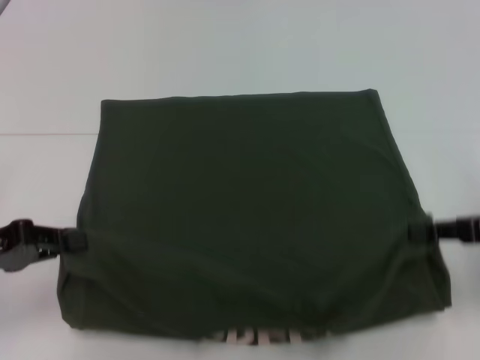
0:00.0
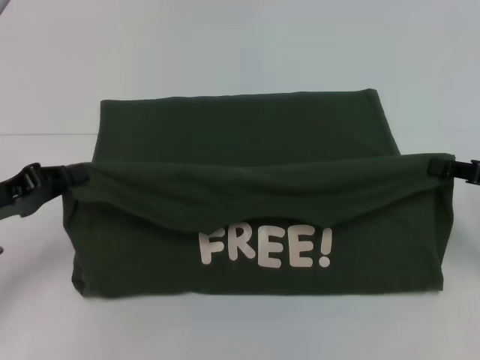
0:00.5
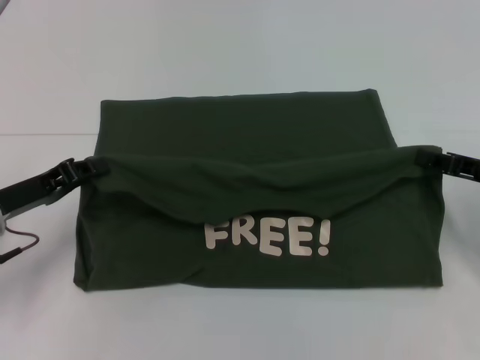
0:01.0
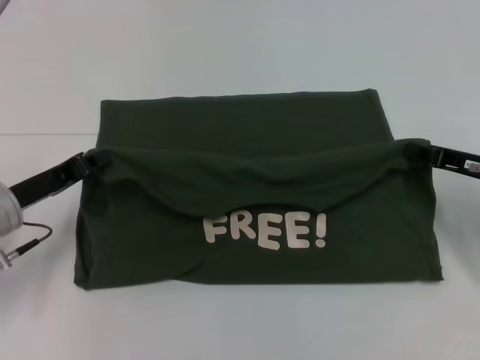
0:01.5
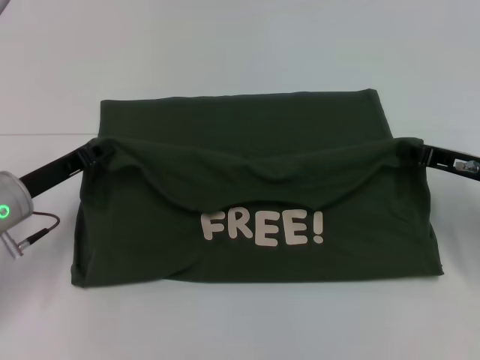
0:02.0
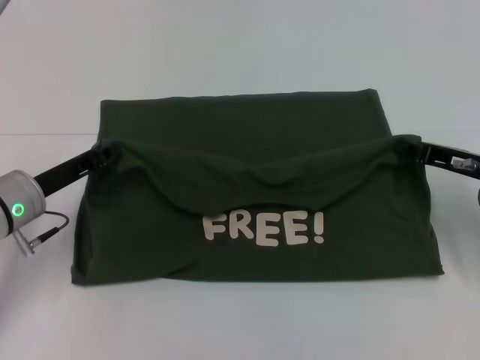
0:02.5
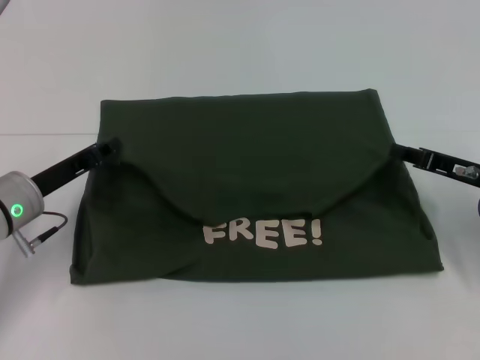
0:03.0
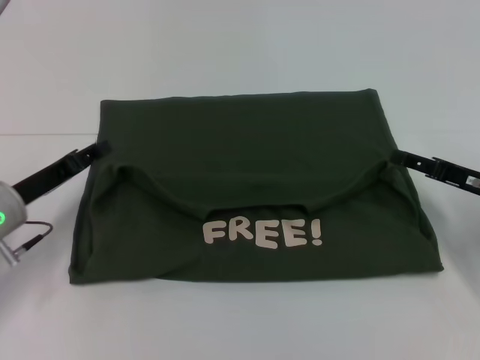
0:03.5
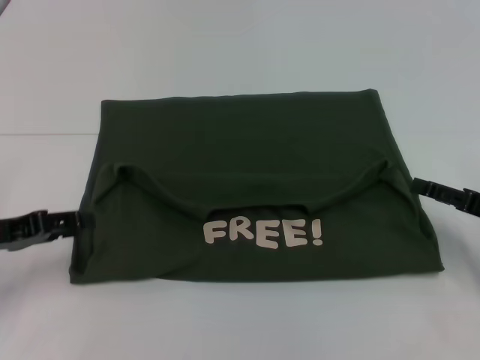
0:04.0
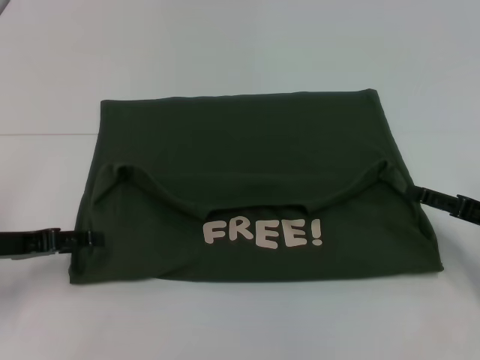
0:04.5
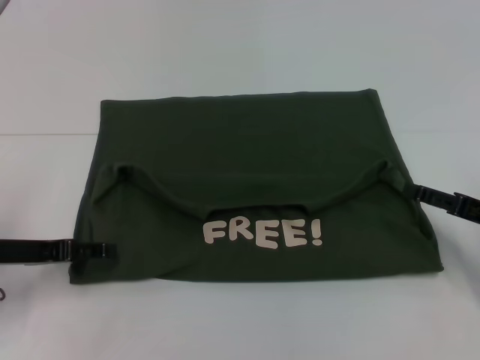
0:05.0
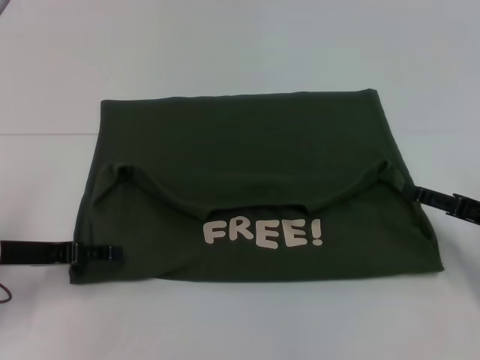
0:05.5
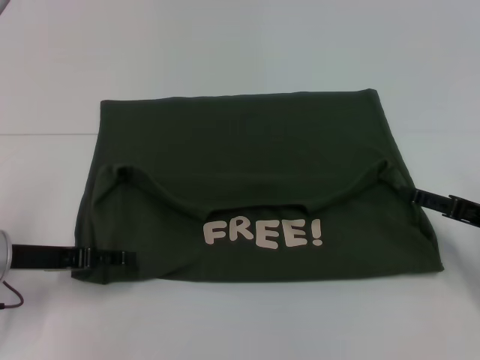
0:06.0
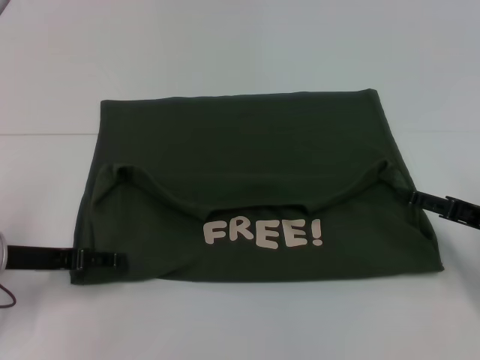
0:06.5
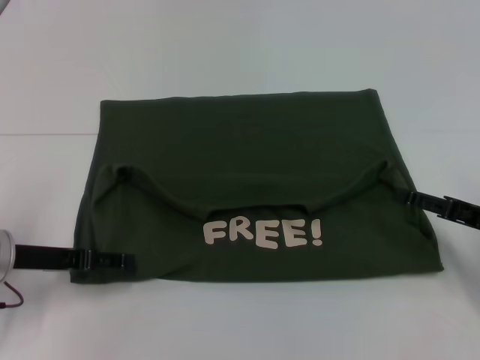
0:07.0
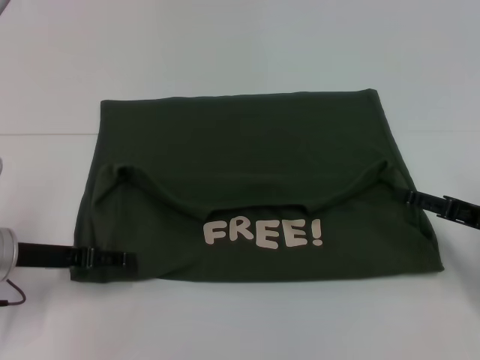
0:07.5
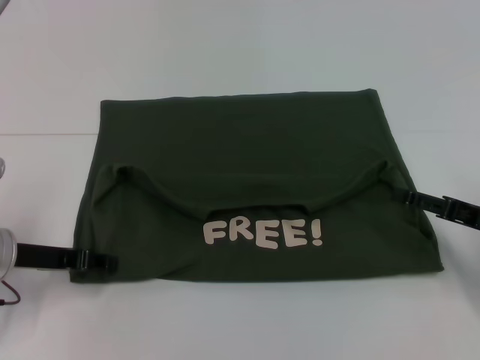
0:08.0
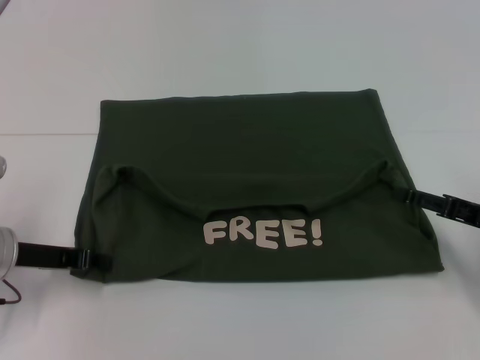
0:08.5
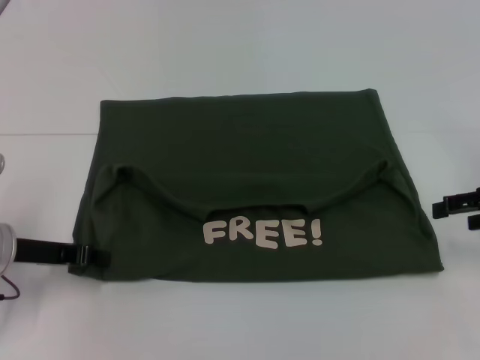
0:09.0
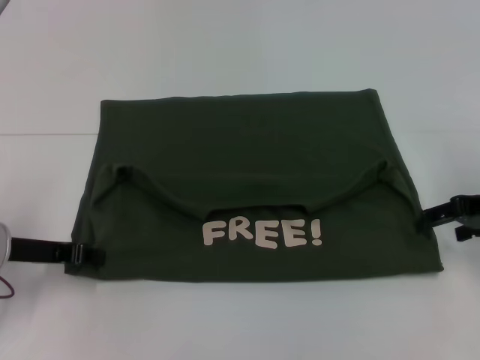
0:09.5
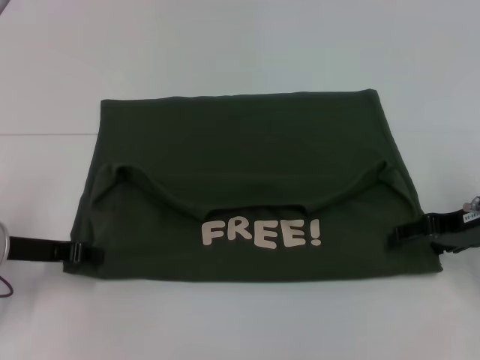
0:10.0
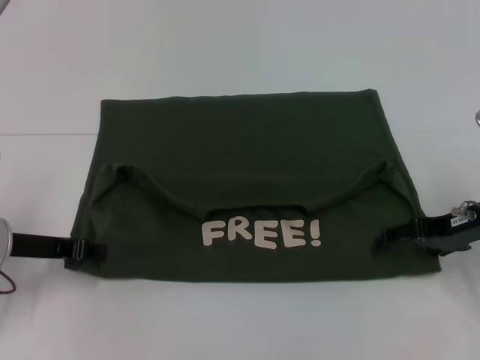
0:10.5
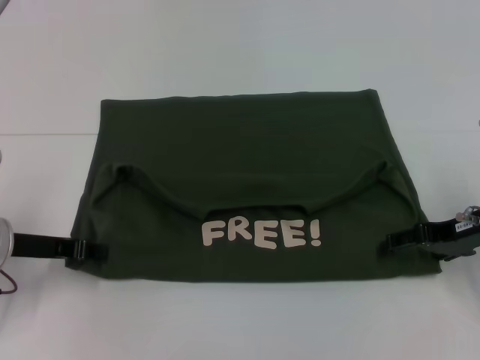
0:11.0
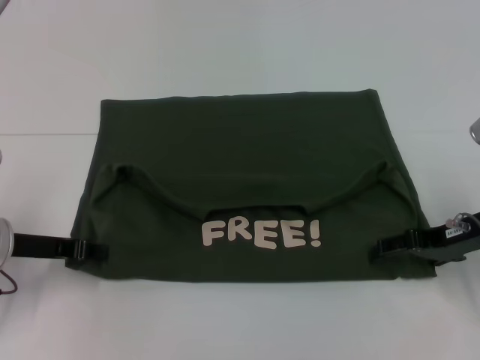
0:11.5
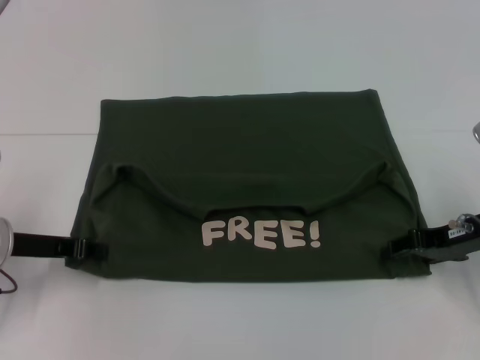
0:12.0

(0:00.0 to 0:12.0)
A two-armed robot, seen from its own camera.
Step, 0:00.0 - 0:03.5: Fold the clothes with your left hand.
Step, 0:00.0 - 0:03.5: Fold the clothes with your right hand.
0:00.0 - 0:02.0: The left gripper heads to the right and forward, covering roughly 10 cm. Meanwhile the right gripper is displaced forward by some 5 cm.
0:02.0 - 0:04.0: The left gripper shifts roughly 5 cm to the left, and opens; the right gripper travels backward by about 5 cm, and opens its fingers.
0:04.0 - 0:06.0: The left gripper moves some 5 cm.
0:06.0 - 0:08.0: The left gripper closes.
0:08.0 - 0:10.0: The right gripper moves forward, roughly 5 cm; the left gripper closes its fingers.
0:10.0 - 0:12.0: The grippers stay close to where they were, moving slightly.

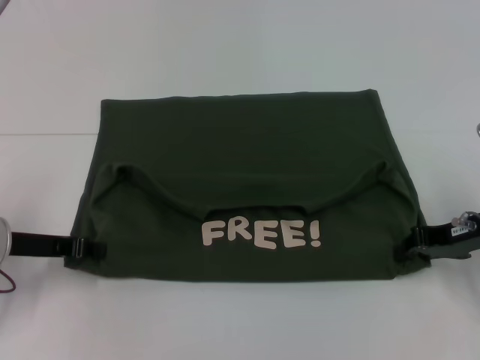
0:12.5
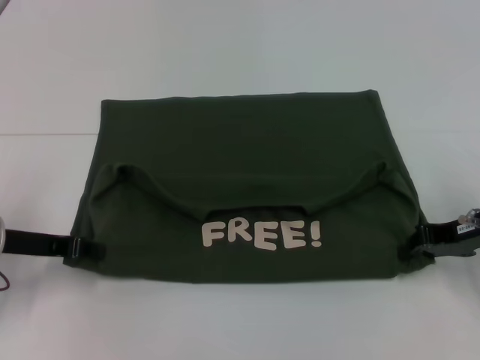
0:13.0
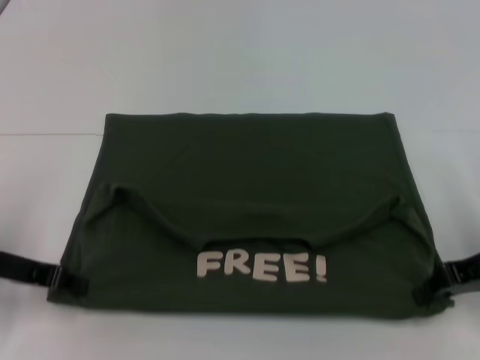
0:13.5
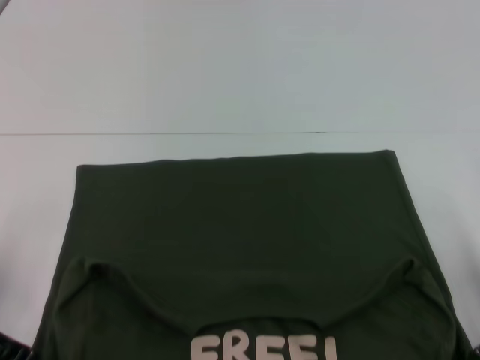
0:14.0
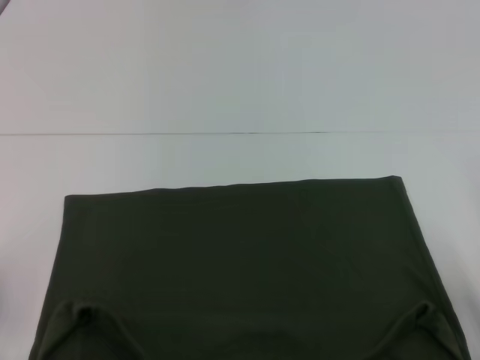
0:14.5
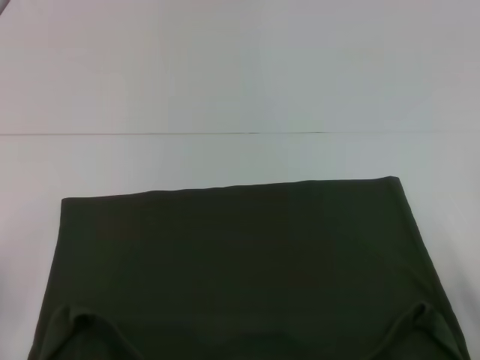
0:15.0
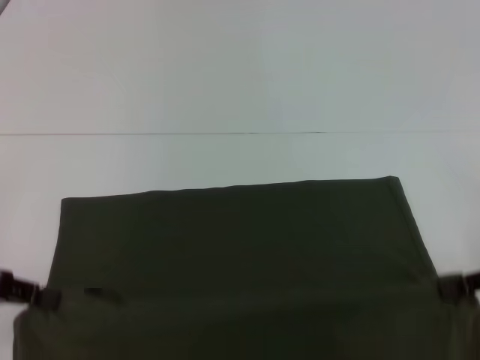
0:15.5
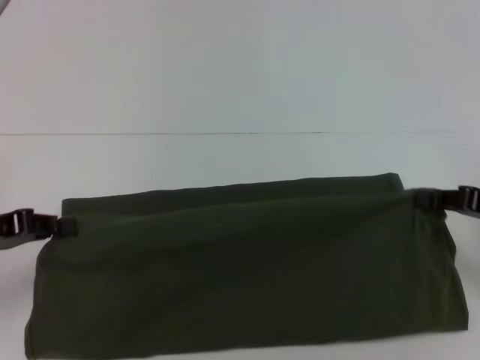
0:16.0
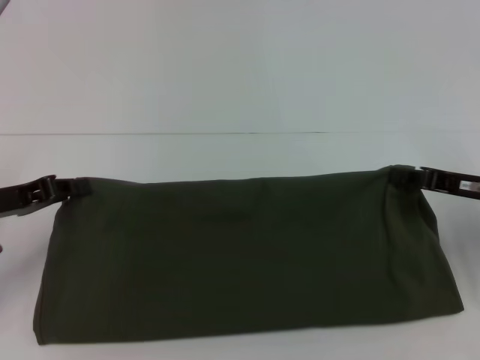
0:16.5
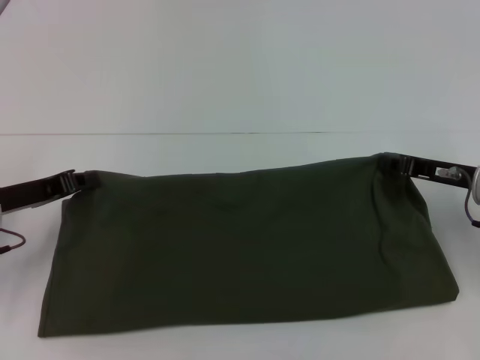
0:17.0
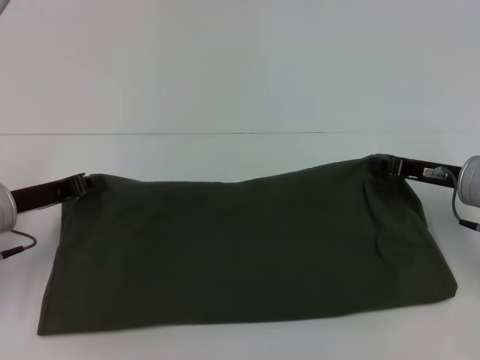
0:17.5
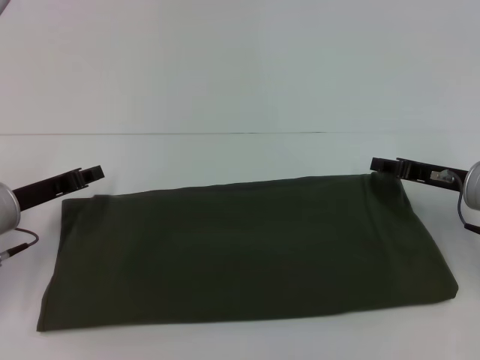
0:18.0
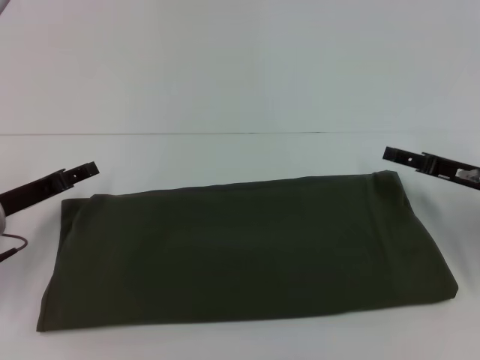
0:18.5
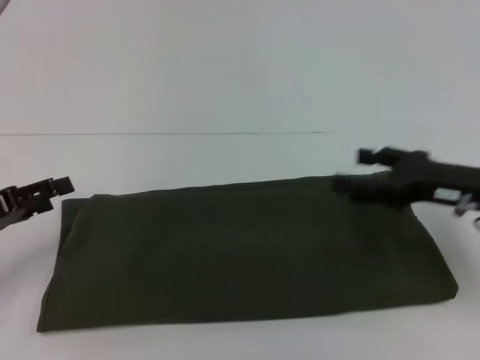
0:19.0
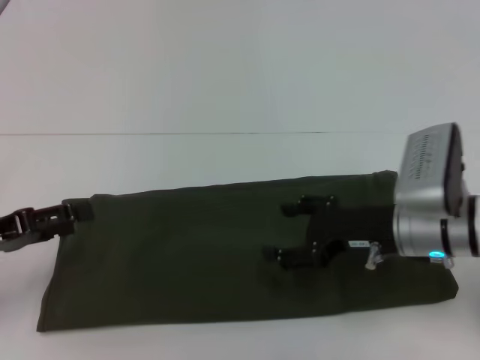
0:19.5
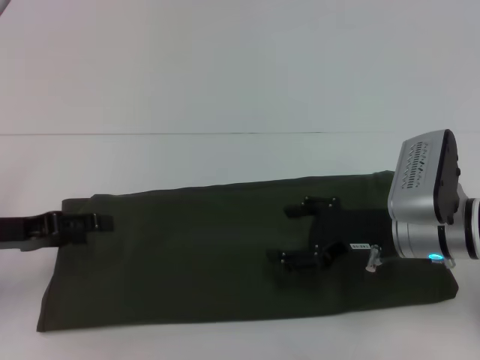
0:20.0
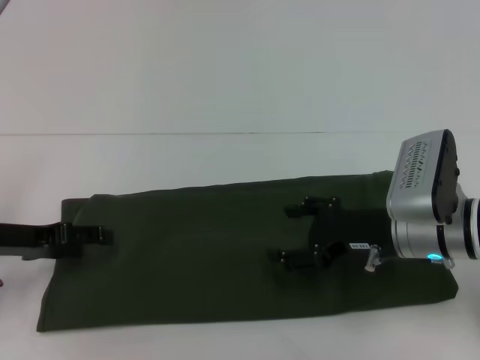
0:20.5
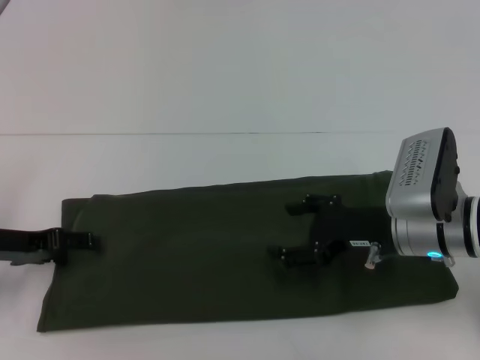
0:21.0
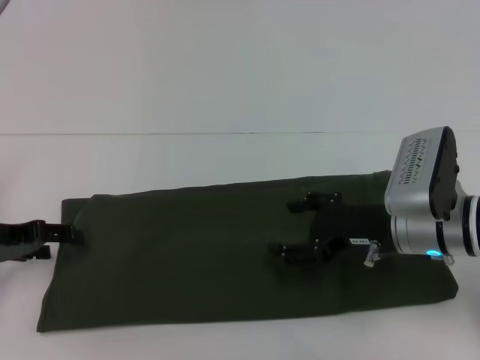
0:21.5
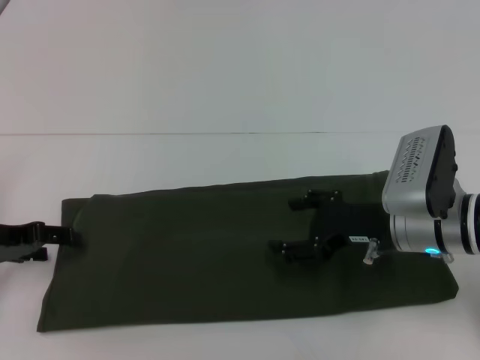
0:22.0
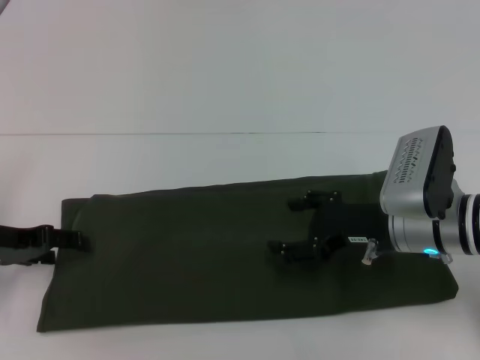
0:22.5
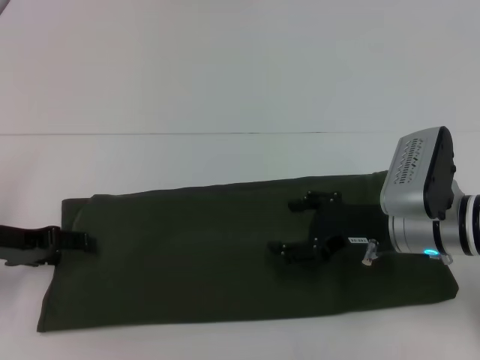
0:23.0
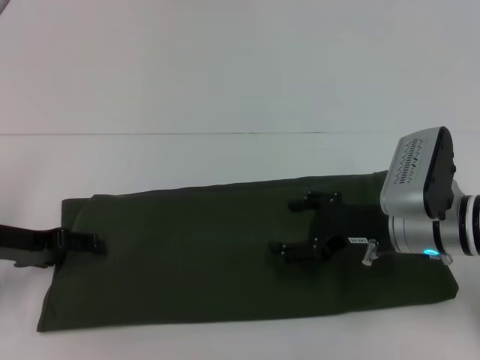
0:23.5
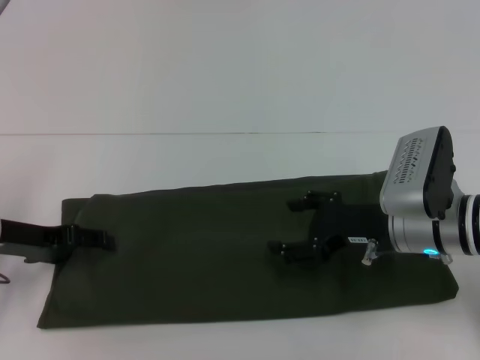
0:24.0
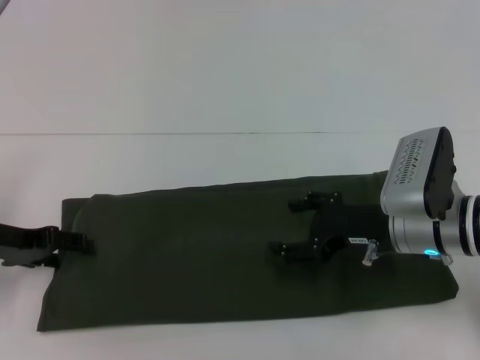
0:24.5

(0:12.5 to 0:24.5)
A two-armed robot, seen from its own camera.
Step, 0:14.5 - 0:18.0: Fold the clothes with your right hand.
0:12.5 - 0:14.5: Both grippers travel together backward, approximately 10 cm.
0:14.5 - 0:16.5: Both grippers move forward, some 5 cm.
0:16.5 - 0:18.5: The right gripper opens; the left gripper opens its fingers.
0:18.5 - 0:20.5: The right gripper moves to the left, roughly 10 cm. The left gripper opens.
0:20.5 - 0:22.5: The grippers make only small movements.

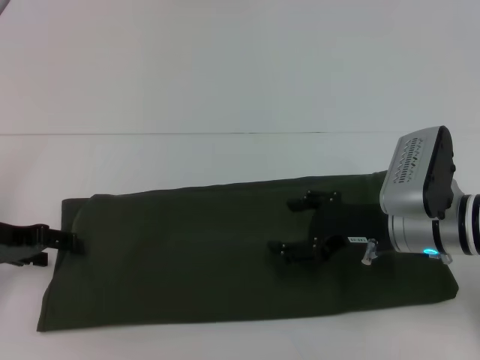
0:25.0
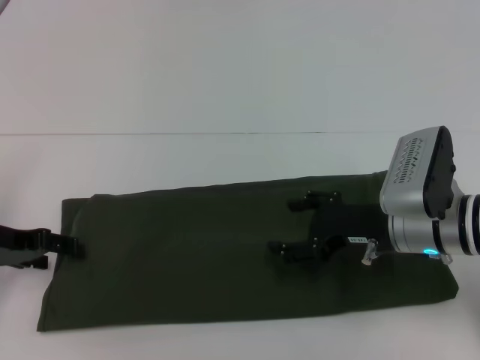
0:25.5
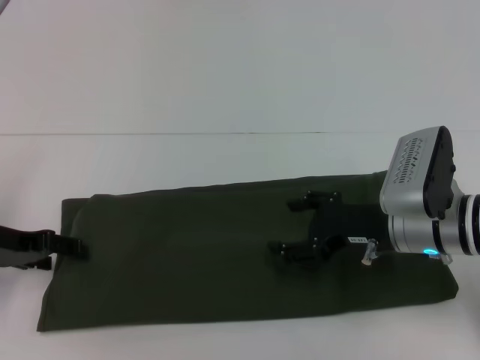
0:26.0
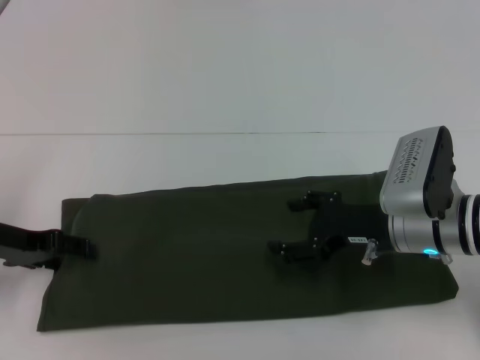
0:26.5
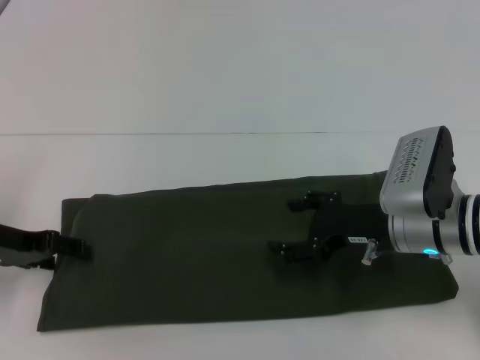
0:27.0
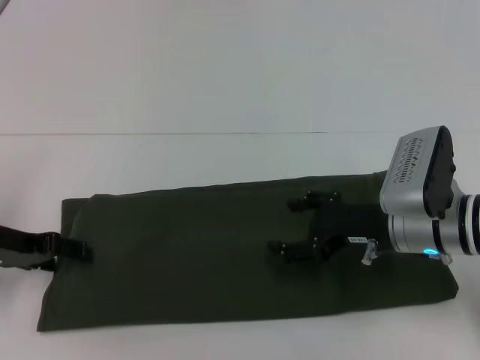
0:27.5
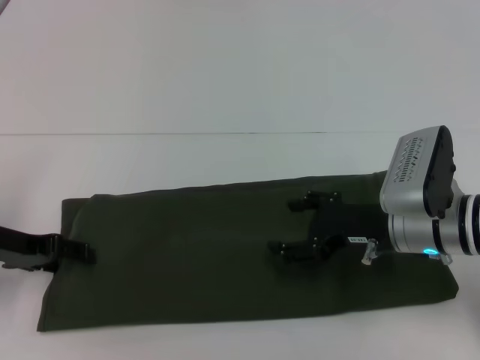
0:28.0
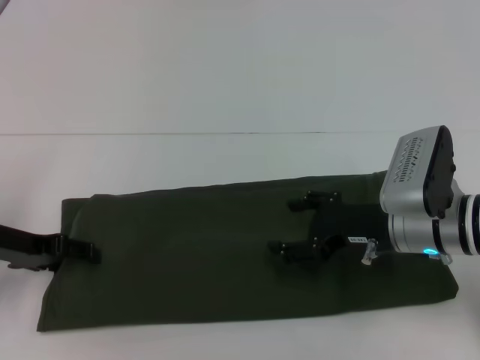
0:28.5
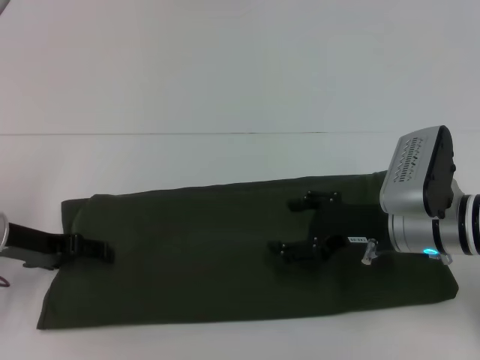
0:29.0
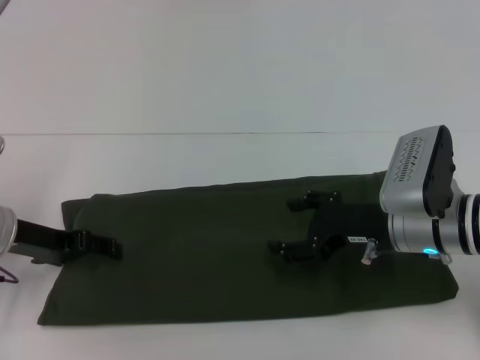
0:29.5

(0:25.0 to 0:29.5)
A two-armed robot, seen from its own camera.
0:27.0 - 0:29.5: The grippers stay close to where they were, moving slightly.
